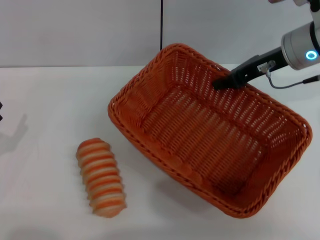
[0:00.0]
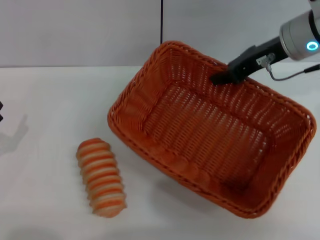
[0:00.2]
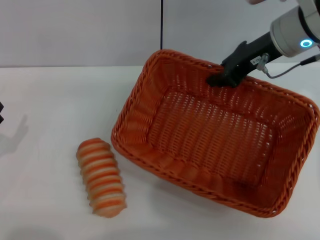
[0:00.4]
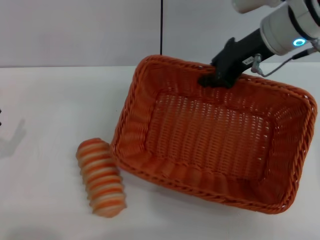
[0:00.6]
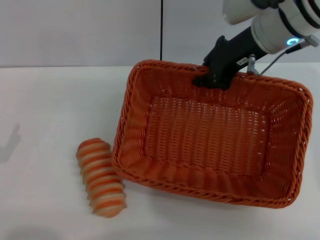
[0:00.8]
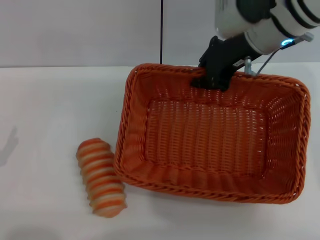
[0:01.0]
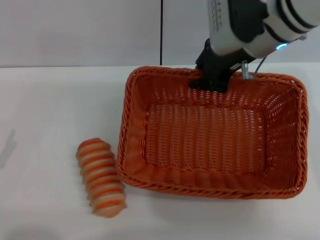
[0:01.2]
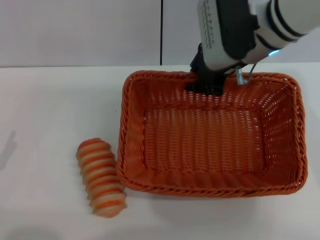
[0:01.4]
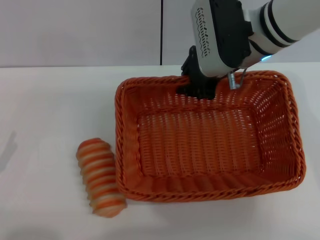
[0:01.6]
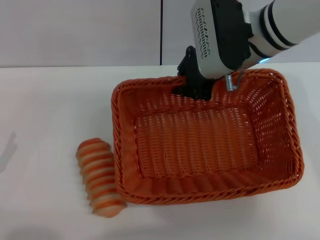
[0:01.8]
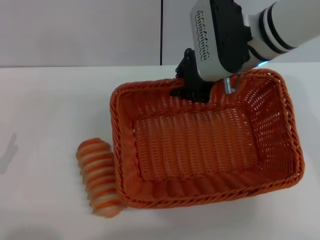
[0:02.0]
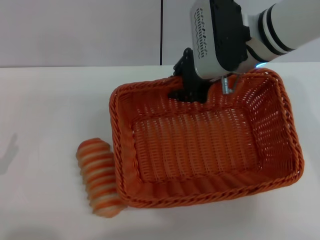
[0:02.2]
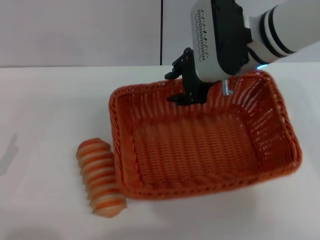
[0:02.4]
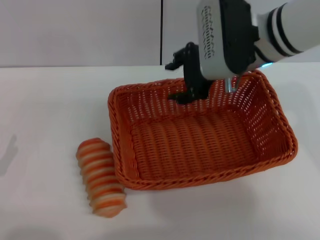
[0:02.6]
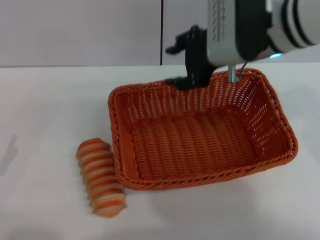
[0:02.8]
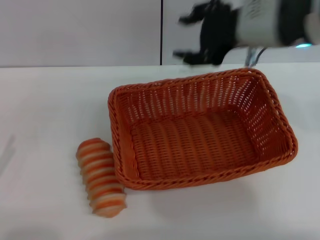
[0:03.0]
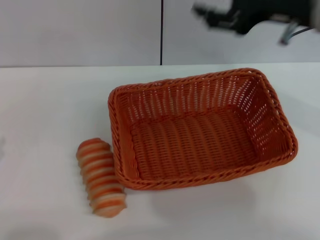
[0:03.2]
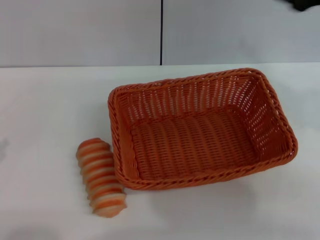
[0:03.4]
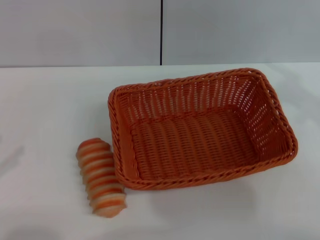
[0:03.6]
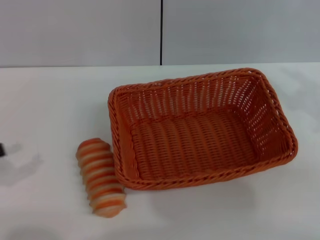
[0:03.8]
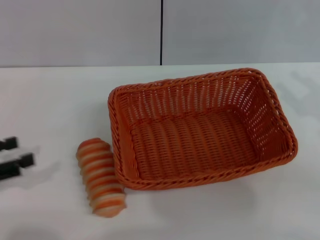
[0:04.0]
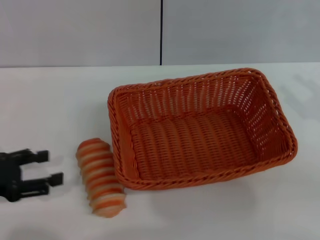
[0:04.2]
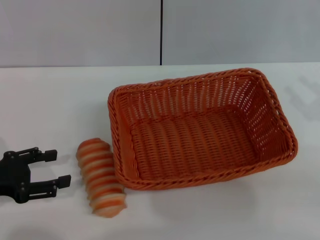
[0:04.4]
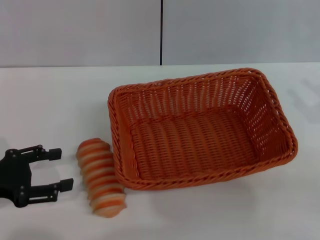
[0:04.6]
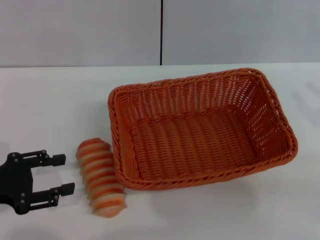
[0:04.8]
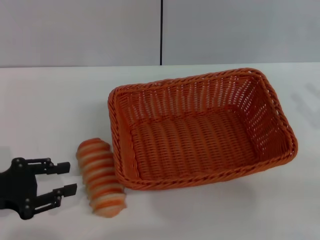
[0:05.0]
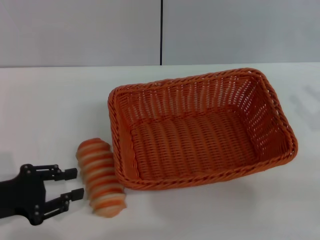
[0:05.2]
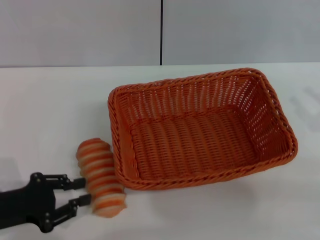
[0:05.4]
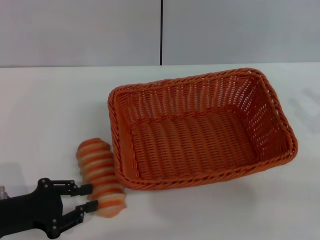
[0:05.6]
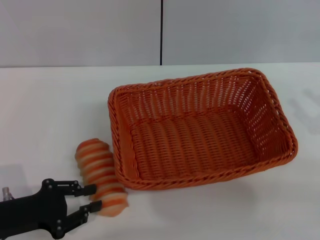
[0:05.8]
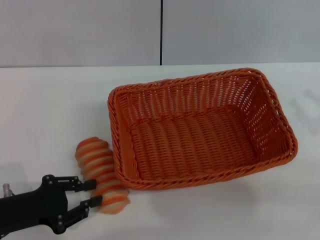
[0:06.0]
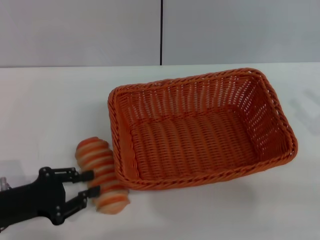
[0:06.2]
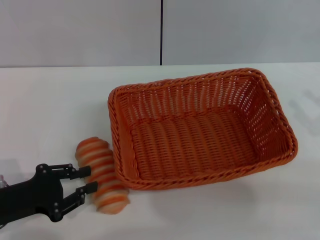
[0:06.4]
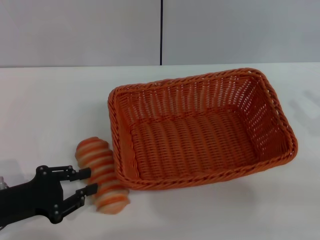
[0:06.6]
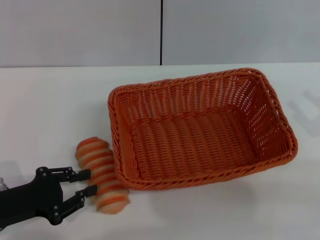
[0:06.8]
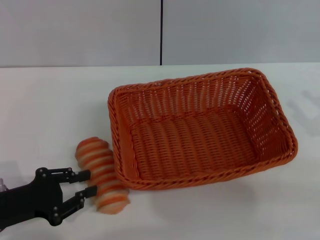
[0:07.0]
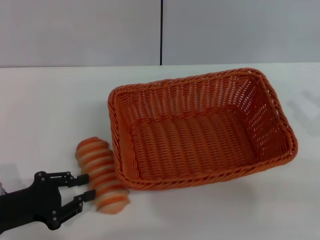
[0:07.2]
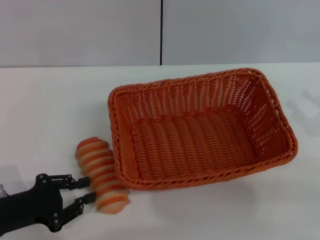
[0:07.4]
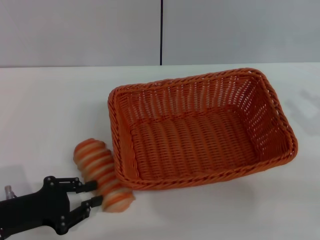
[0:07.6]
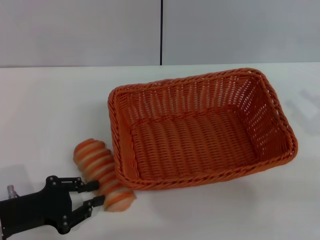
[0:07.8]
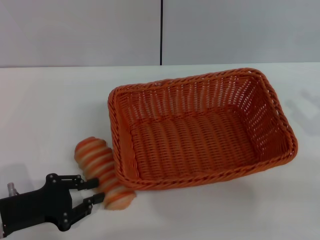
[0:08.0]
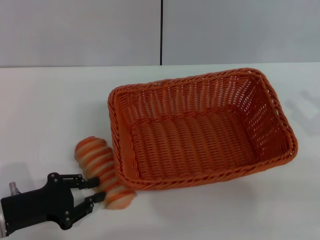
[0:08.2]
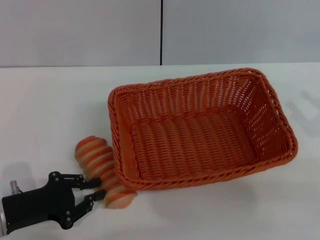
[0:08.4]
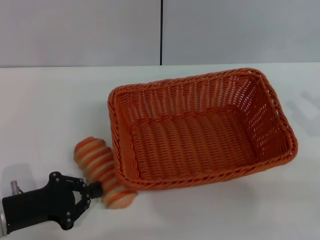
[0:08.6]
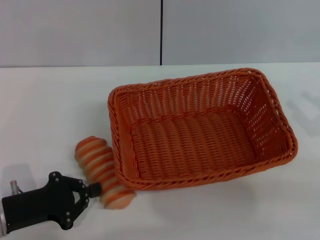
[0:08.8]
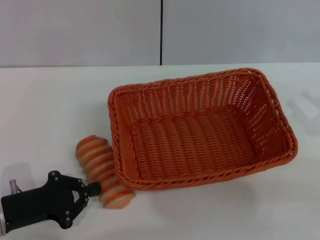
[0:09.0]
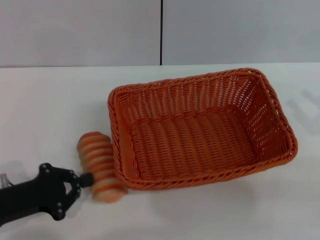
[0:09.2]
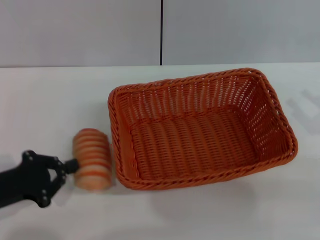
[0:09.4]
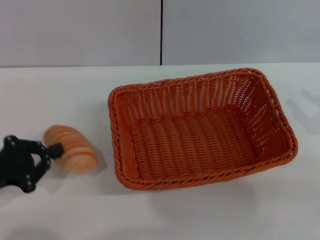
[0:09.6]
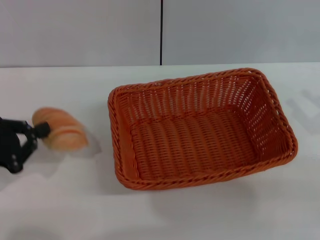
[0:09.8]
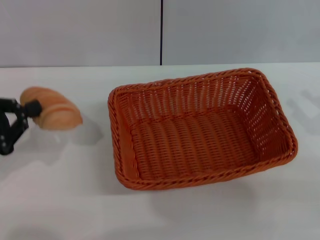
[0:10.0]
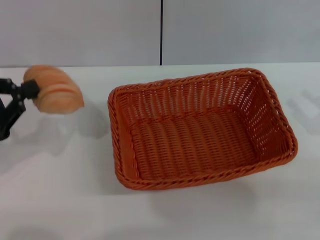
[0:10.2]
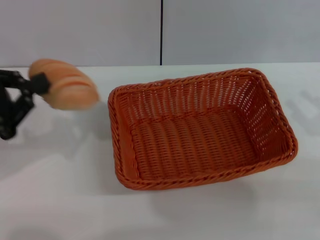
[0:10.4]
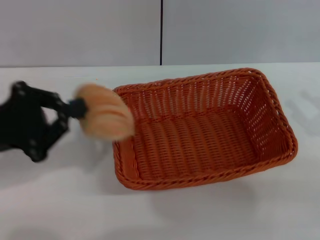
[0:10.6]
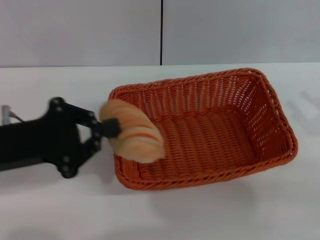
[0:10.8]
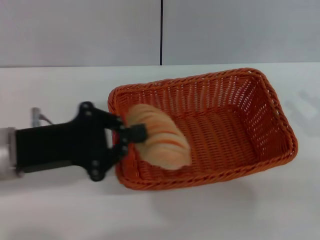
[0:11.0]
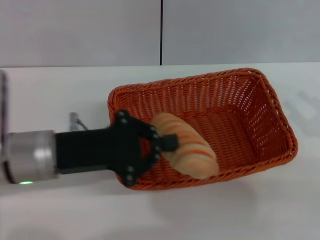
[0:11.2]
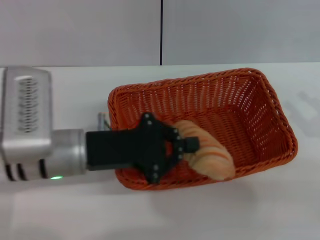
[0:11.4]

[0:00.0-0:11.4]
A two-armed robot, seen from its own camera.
Step, 0:00.6 to 0:02.8: Place the light basket in the center of view with the right gripper.
Step, 0:03.0 to 0:09.8: Pick up the long bread with the left gripper.
0:00.0 to 0:01.4: The right gripper moves to the left, roughly 10 cm.
0:01.4 to 0:02.8: The right gripper opens its fingers.
0:02.8 to 0:04.2: The right gripper shifts roughly 25 cm to the right and backward. The left gripper goes roughly 10 cm upward and forward.
0:04.2 to 0:05.6: The left gripper shifts approximately 5 cm downward, and closes its fingers.
0:05.6 to 0:08.6: The grippers move only a little.
0:08.6 to 0:10.0: The left gripper heads upward and to the left, covering some 10 cm.
0:10.0 to 0:11.4: The left gripper heads to the right, covering approximately 15 cm.

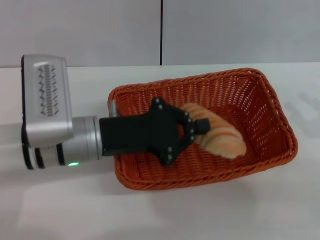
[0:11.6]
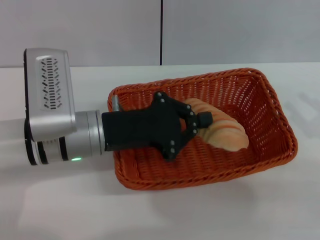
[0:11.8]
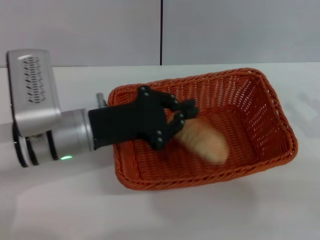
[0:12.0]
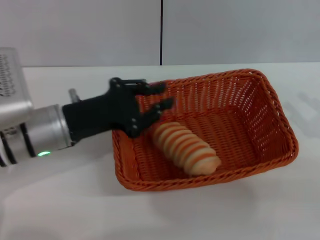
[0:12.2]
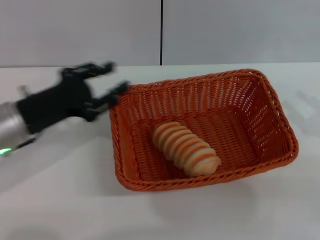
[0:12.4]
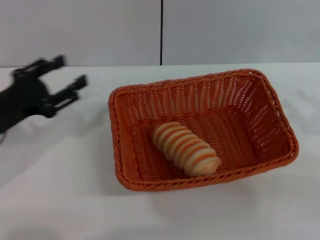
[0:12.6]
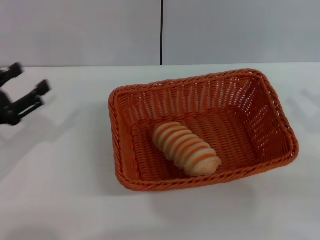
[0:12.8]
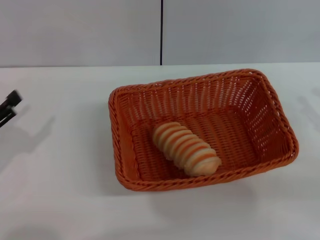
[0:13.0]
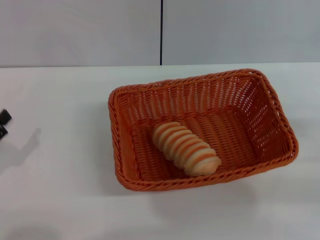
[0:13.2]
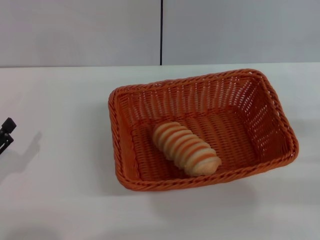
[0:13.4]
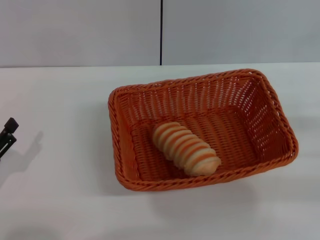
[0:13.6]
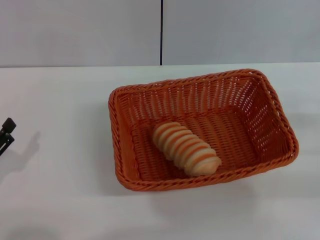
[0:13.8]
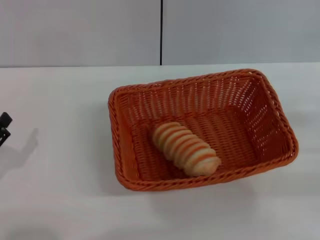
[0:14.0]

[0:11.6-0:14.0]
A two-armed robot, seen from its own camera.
0:11.6 to 0:12.8: The left gripper travels to the left by about 20 cm, and opens its fingers.
0:12.8 to 0:14.0: The left gripper travels backward and downward by about 10 cm.
